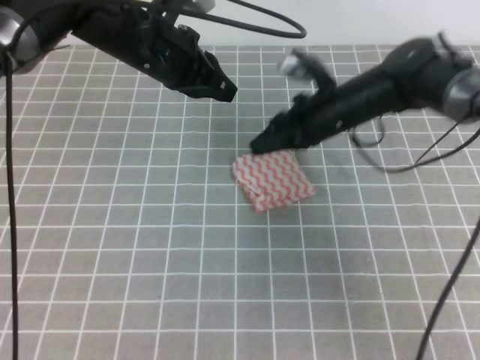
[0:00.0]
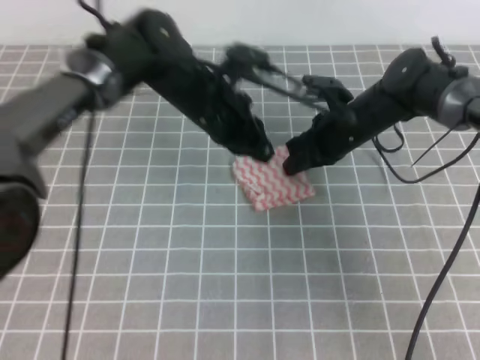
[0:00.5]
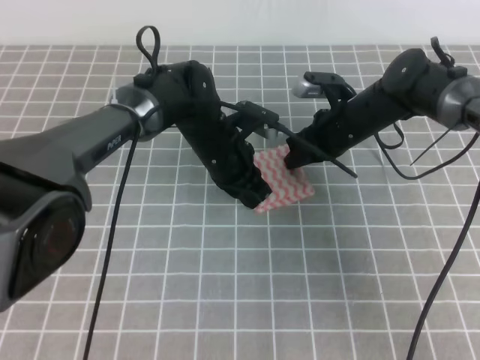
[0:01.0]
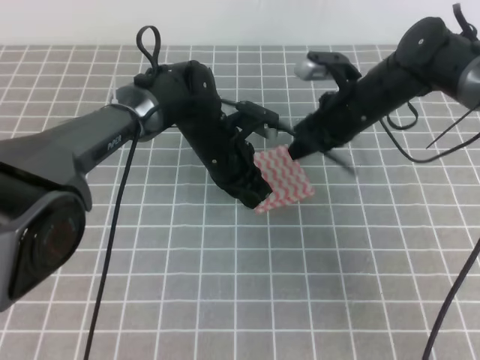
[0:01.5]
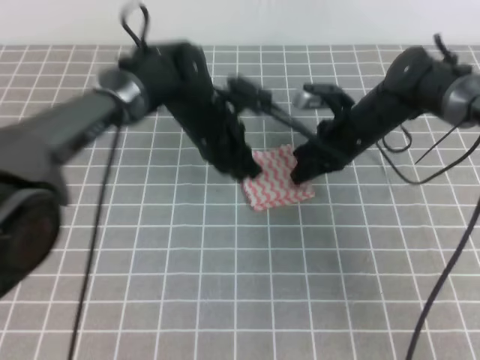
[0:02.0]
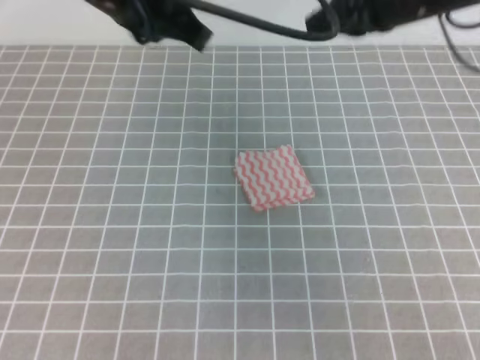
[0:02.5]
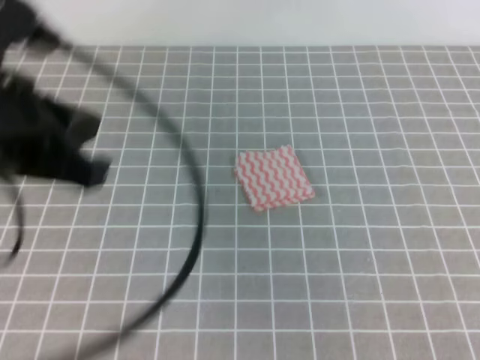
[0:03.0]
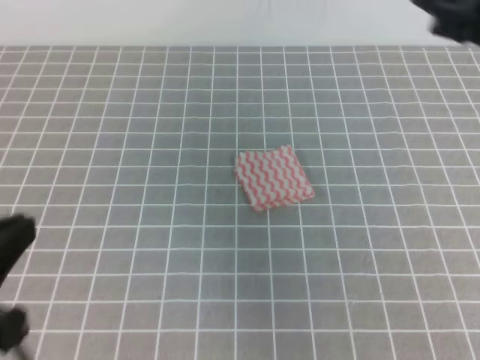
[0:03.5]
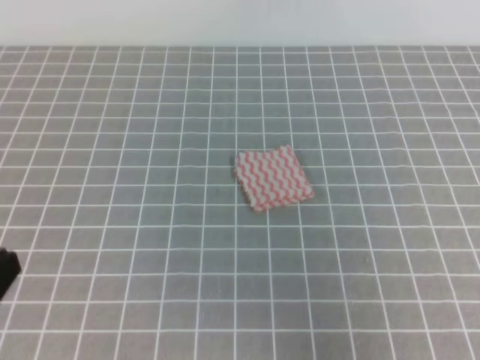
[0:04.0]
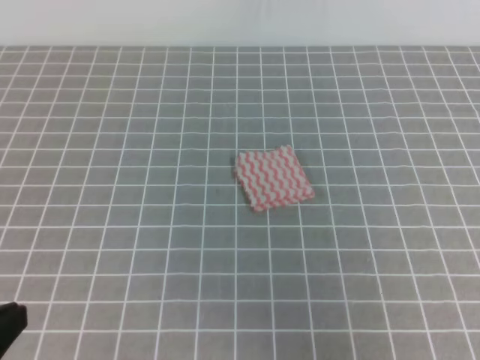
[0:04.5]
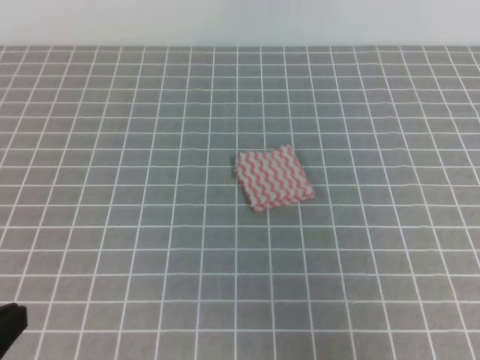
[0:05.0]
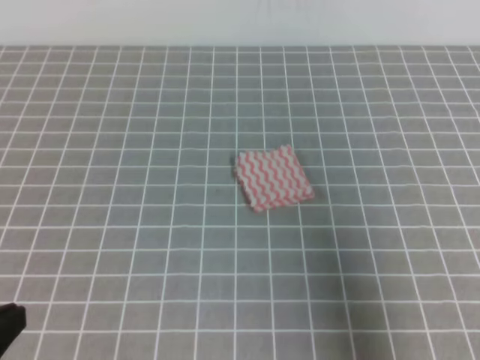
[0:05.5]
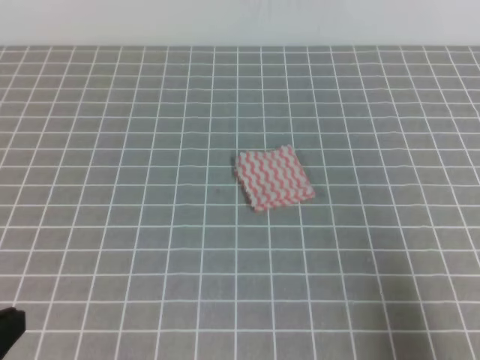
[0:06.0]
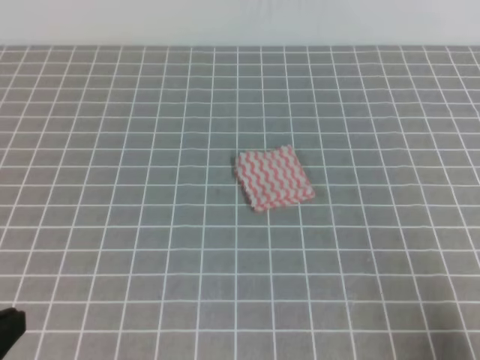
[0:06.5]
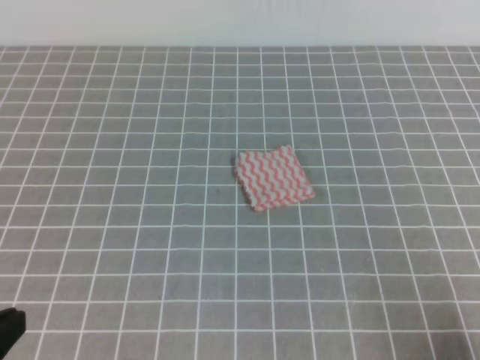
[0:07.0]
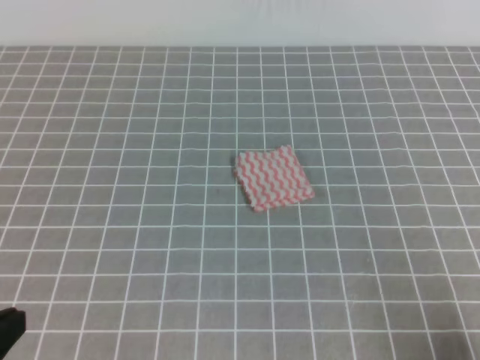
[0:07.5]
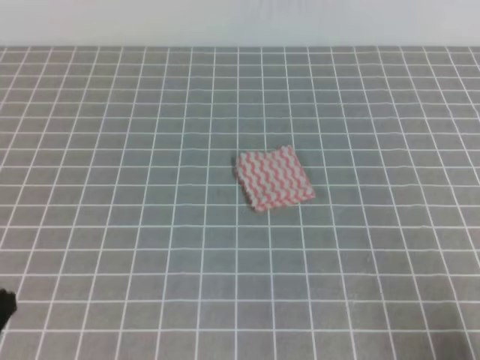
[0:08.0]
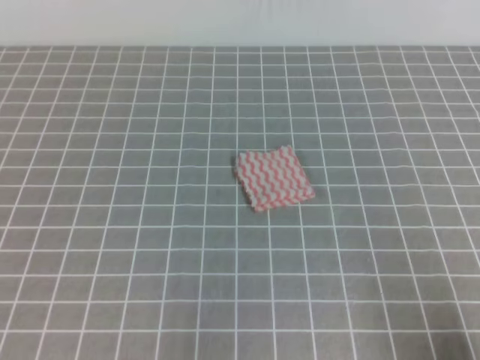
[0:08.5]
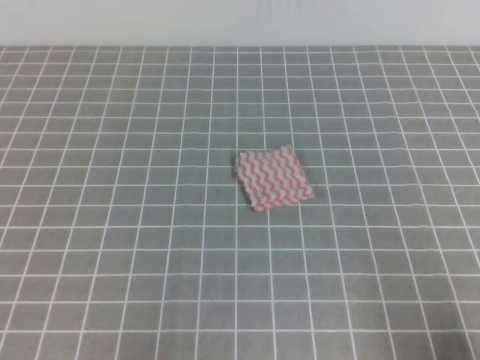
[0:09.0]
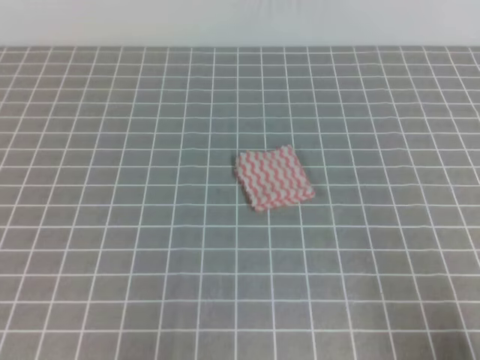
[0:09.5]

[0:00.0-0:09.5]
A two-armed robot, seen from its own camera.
Step, 0:00.0 to 0:09.5: Fold the towel.
0:00.0 to 0:02.0: The left gripper moves downward and to the right, some 15 cm.
0:02.0 to 0:04.0: The left gripper heads backward and to the left, covering approximately 40 cm, while the right gripper is displaced backward and upward by approximately 35 cm.
0:04.0 to 0:05.5: The right gripper shifts roughly 10 cm downward.
0:05.5 to 0:07.5: The right gripper shifts approximately 15 cm downward and backward.
